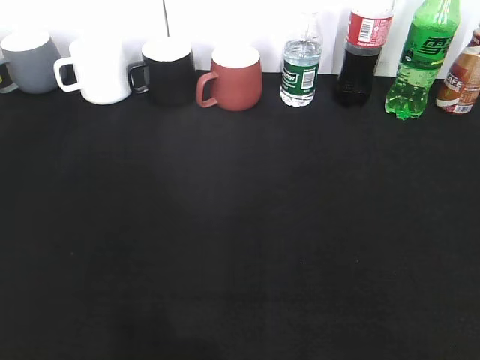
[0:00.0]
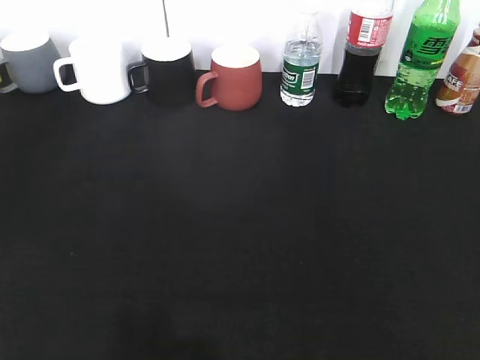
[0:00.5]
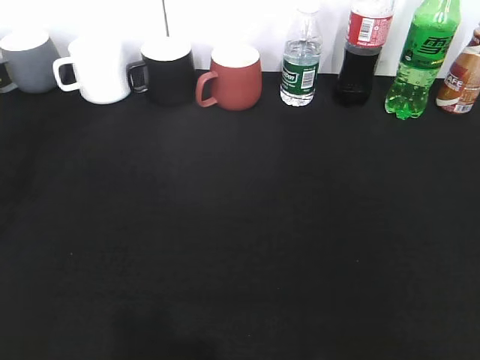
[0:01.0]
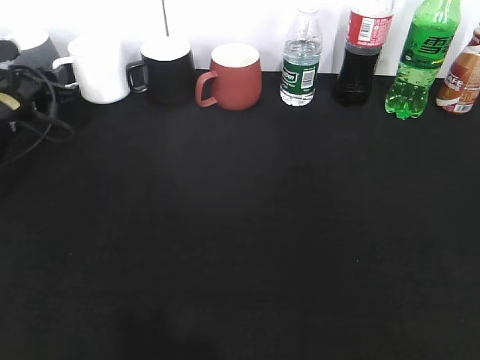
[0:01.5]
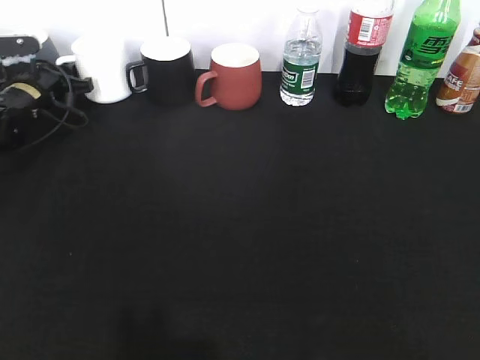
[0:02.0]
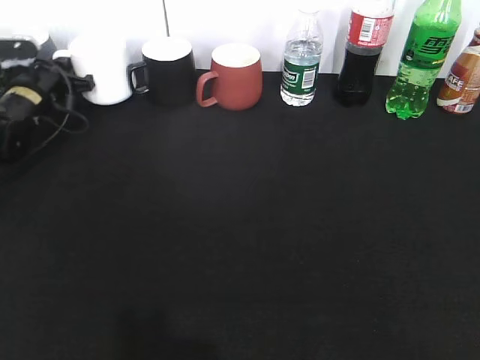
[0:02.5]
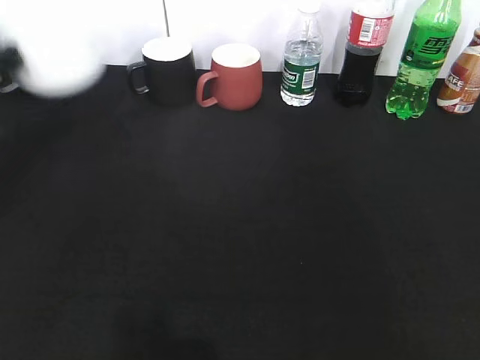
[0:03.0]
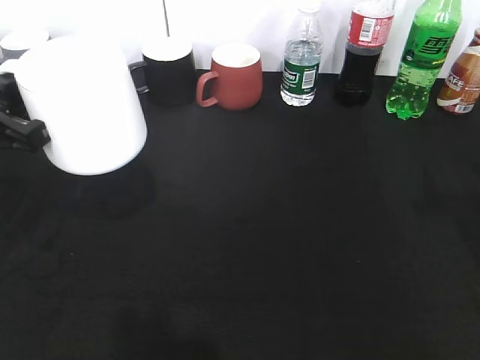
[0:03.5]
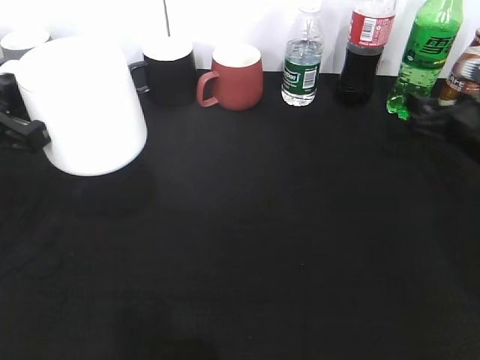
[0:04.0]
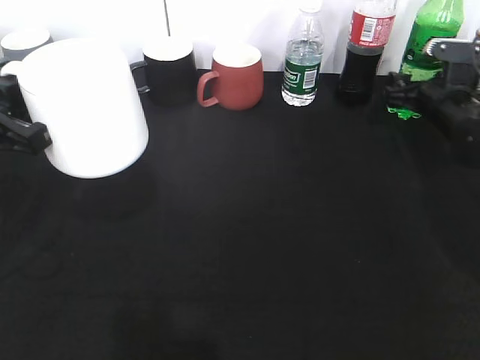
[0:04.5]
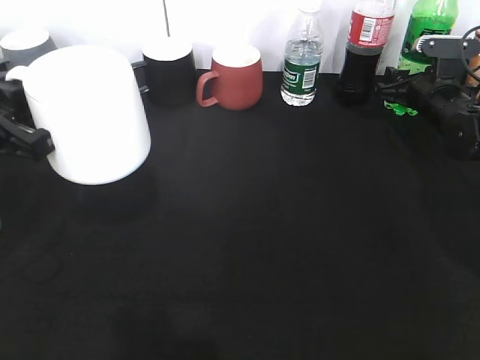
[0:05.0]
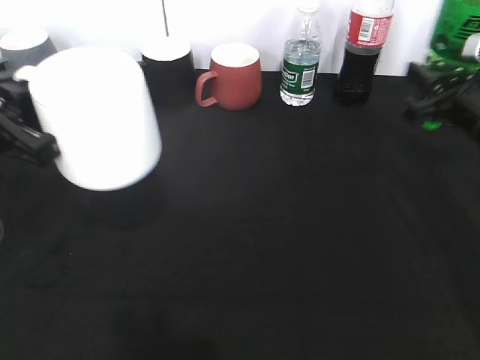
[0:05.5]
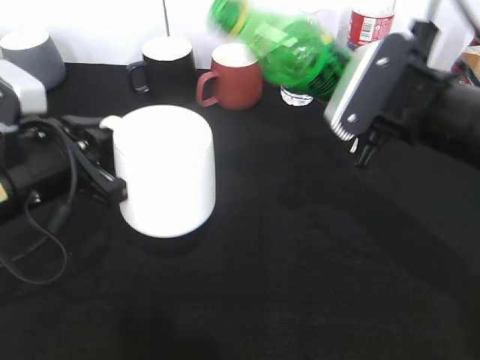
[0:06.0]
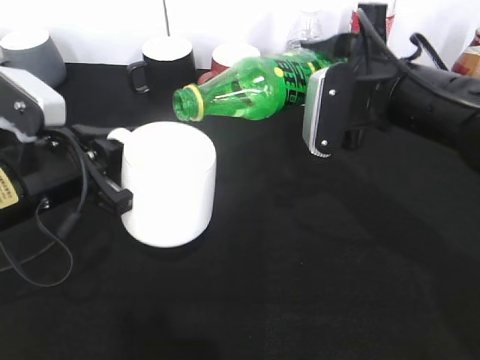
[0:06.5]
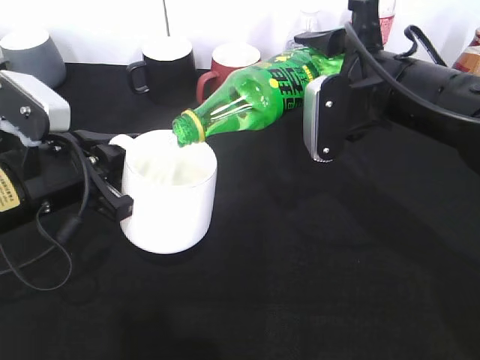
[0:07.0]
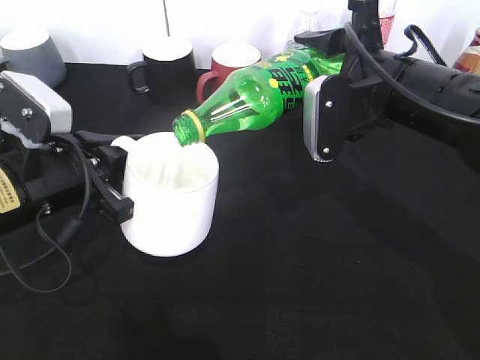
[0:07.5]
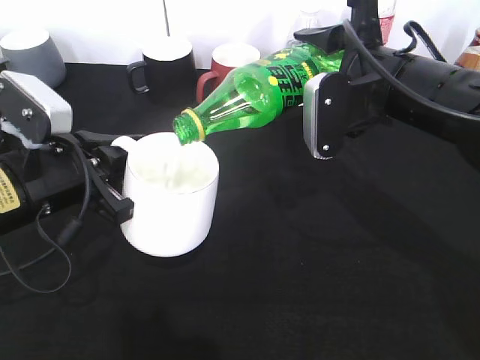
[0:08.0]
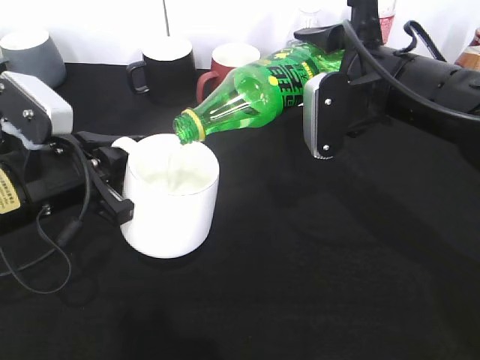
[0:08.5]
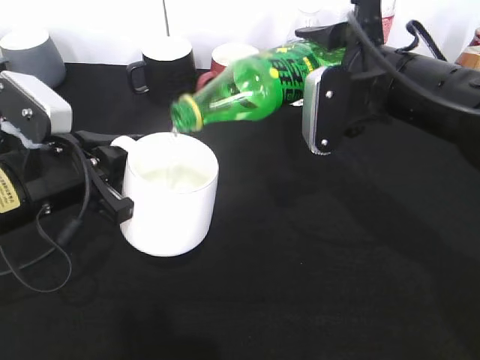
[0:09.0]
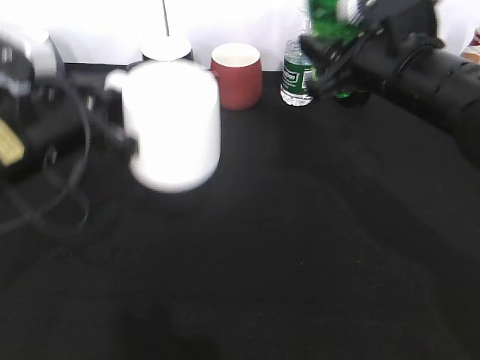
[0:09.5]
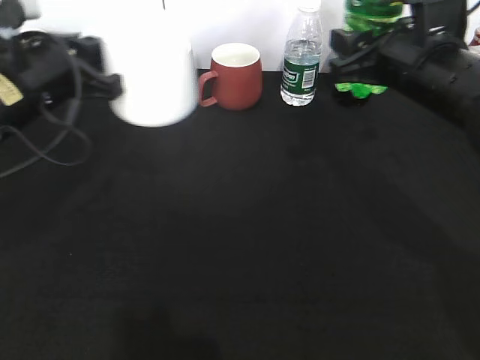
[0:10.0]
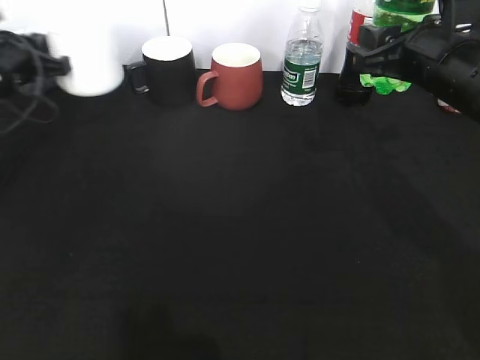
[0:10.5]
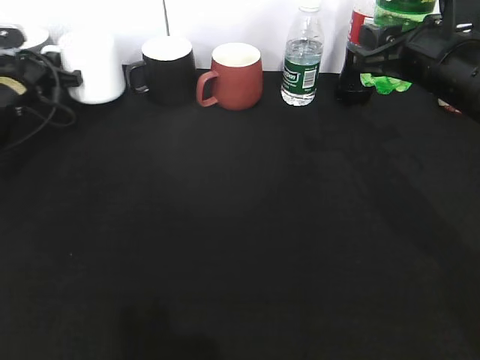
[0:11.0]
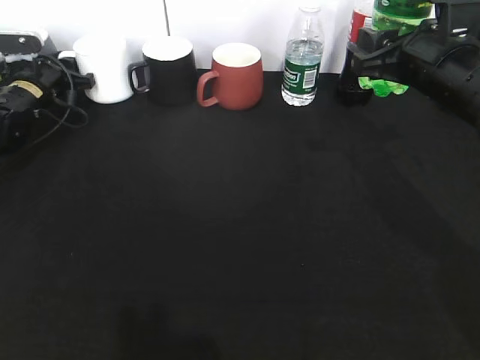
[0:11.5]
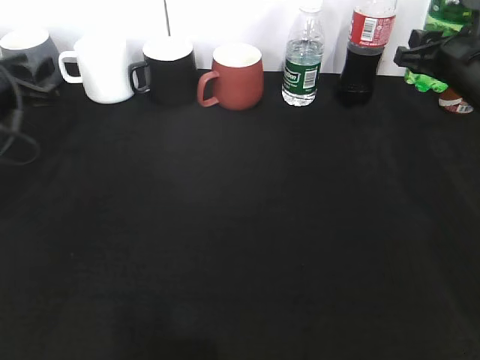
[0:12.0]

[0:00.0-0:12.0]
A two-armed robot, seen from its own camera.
Step, 0:00.0 to 0:02.0: Grasp the white cup with left gripper.
Step, 0:02.5 to 0:03.5: Lift the white cup with left gripper.
Step, 0:04.0 to 0:05.0: Grasp the bottle with sprite with right gripper.
Step, 0:05.5 to 0:09.0: Pour the sprite from bottle to cup with right gripper.
0:00.0 to 0:02.0: The left gripper travels forward by some 50 cm, and closes up.
0:02.0 to 0:04.0: The right gripper shifts roughly 40 cm forward and downward, while the left gripper is displaced backward and upward by roughly 30 cm, and closes its fingers.
0:04.0 to 0:06.0: The left gripper heads to the right, covering about 5 cm. The right gripper is displaced to the left, upward and backward by roughly 20 cm, and closes.
0:08.0 to 0:10.0: The left gripper goes approximately 10 cm forward.
0:10.0 to 0:12.0: The right gripper heads to the right and forward, covering about 10 cm; the left gripper travels to the left by approximately 10 cm, travels forward and back again, about 20 cm each way, and opens.

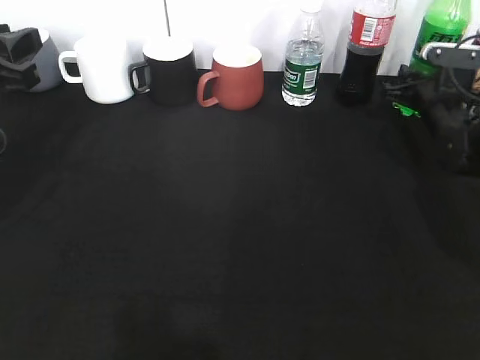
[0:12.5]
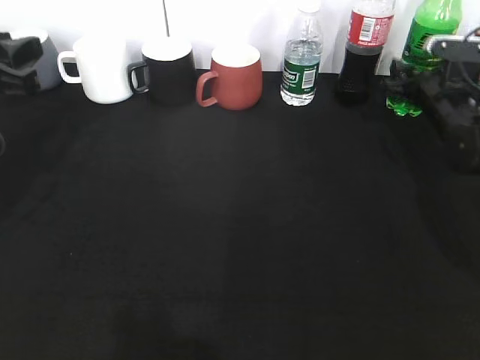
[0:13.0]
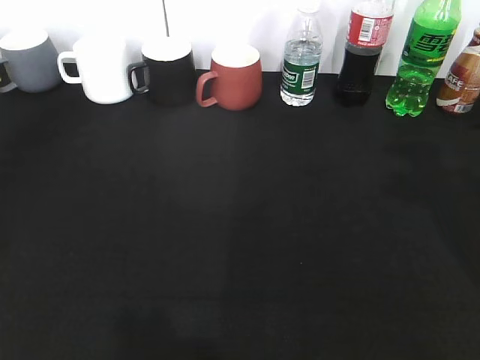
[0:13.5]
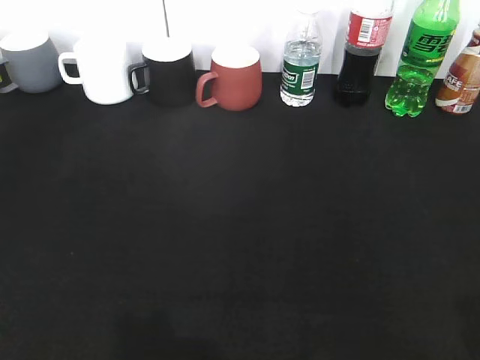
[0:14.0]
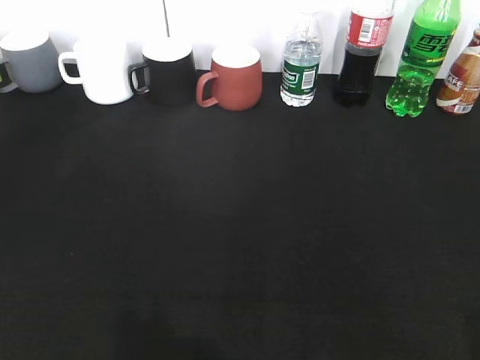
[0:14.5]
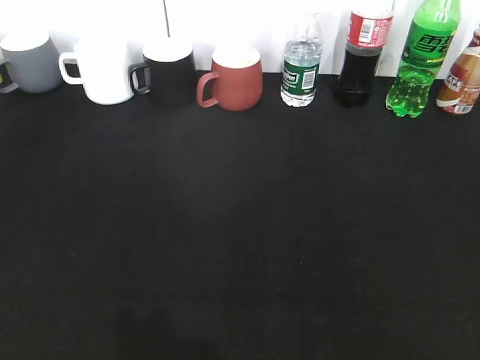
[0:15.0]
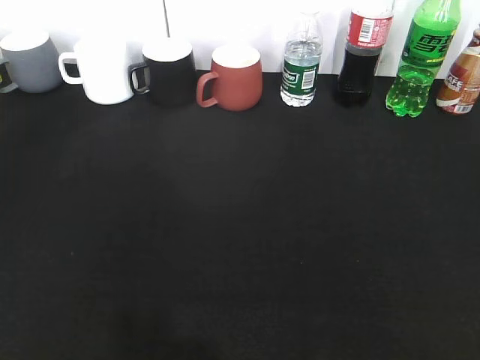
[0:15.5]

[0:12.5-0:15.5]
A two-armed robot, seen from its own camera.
0:12.5 to 0:14.0: The right gripper travels backward and upward by about 50 cm, and opens up, while the left gripper shifts some 25 cm backward.

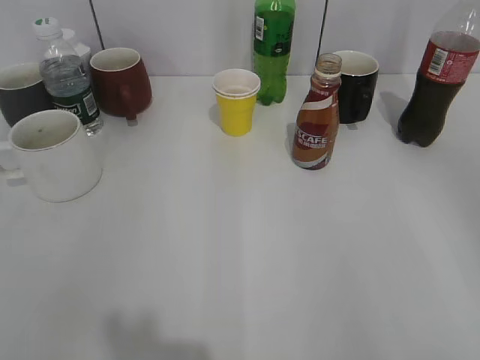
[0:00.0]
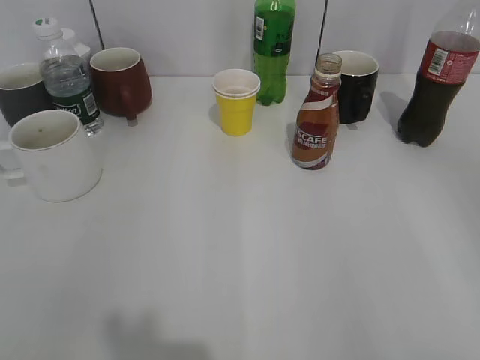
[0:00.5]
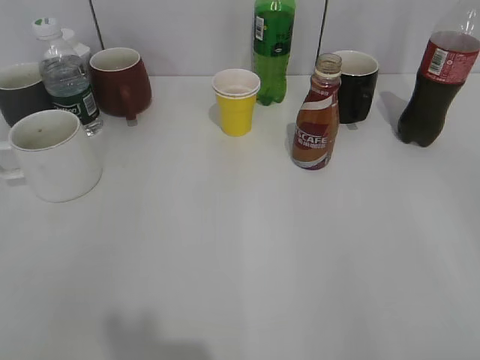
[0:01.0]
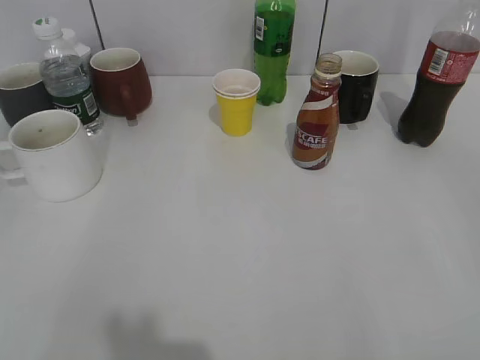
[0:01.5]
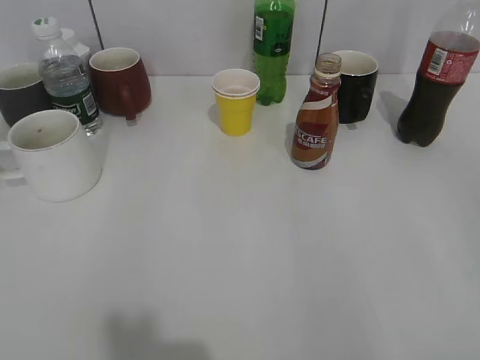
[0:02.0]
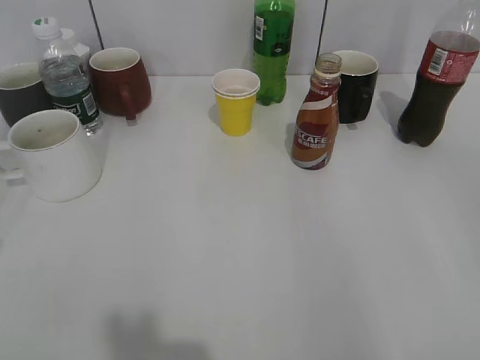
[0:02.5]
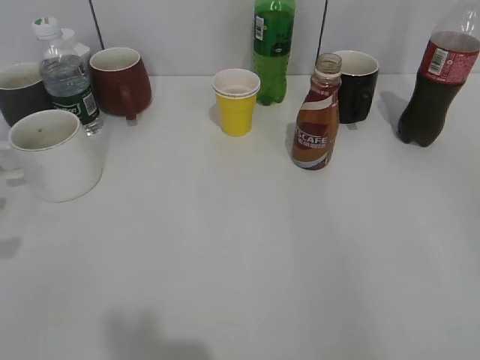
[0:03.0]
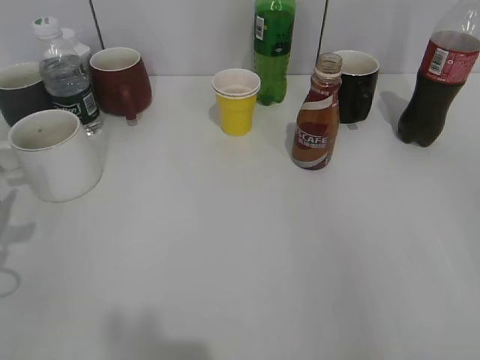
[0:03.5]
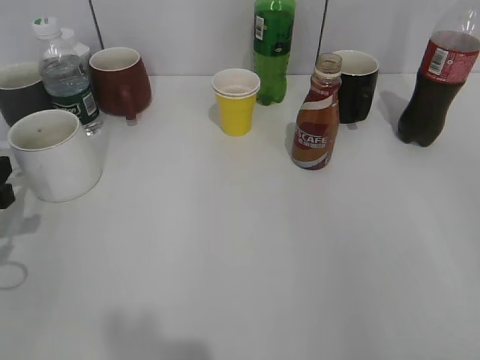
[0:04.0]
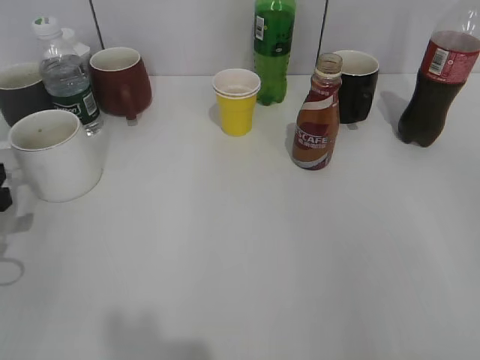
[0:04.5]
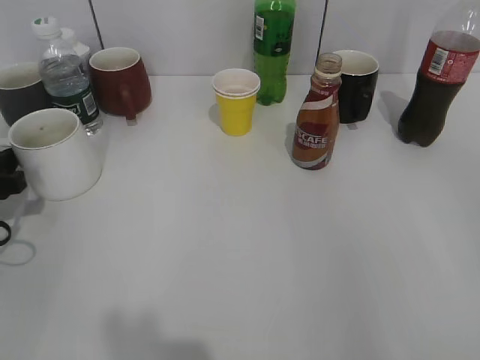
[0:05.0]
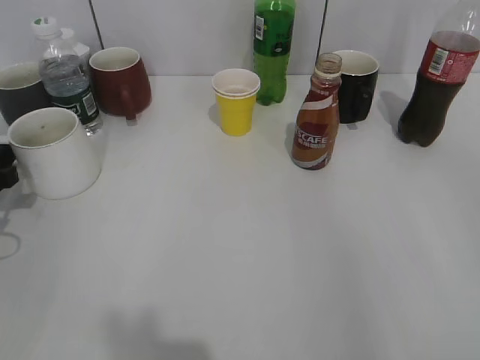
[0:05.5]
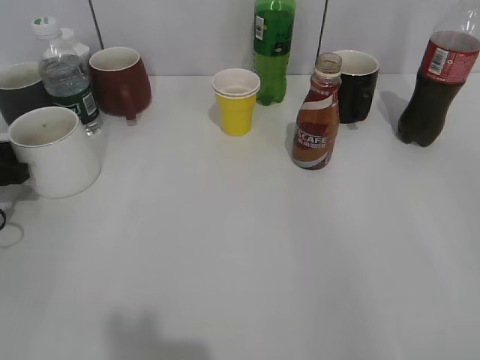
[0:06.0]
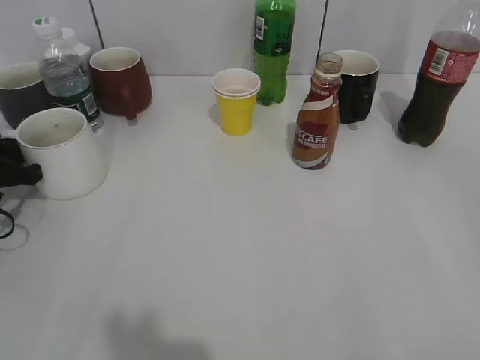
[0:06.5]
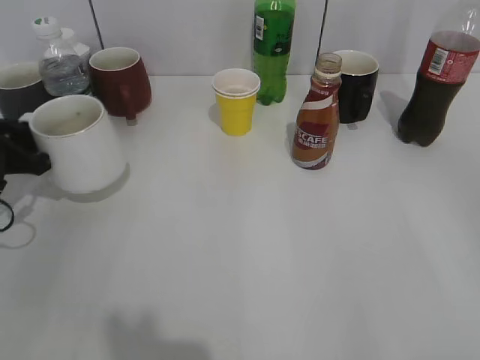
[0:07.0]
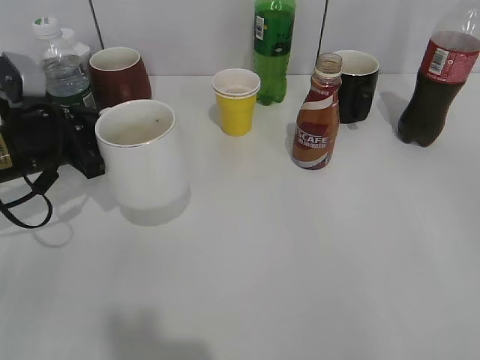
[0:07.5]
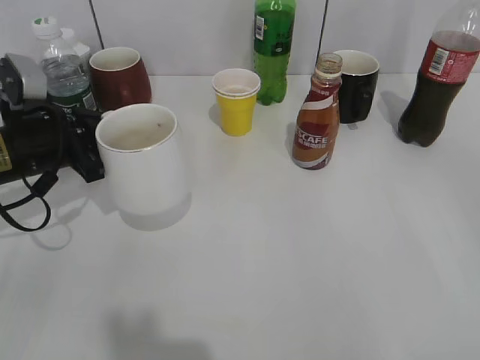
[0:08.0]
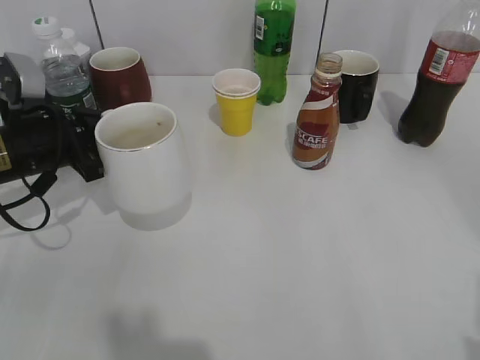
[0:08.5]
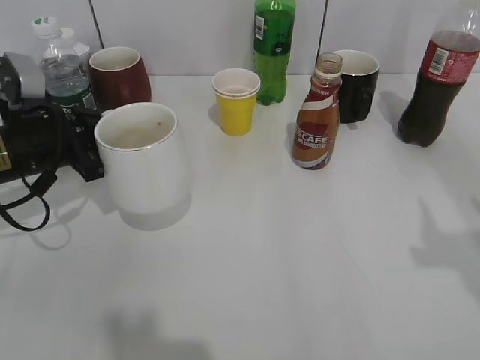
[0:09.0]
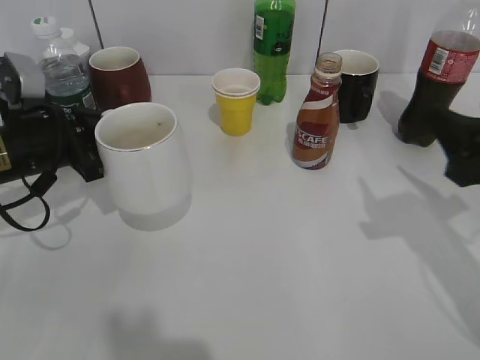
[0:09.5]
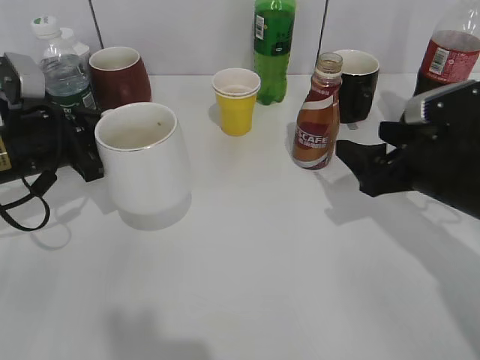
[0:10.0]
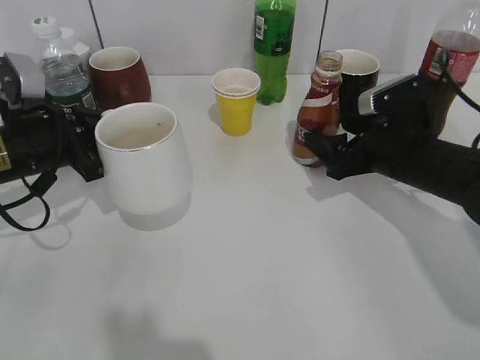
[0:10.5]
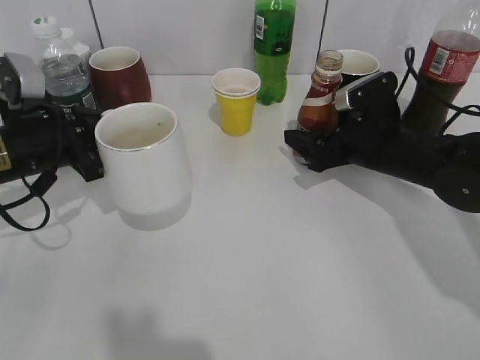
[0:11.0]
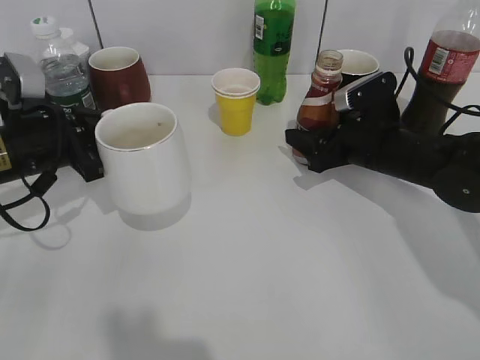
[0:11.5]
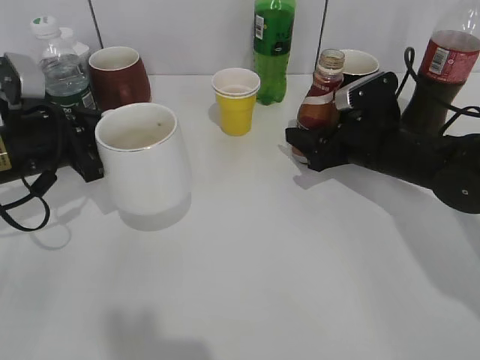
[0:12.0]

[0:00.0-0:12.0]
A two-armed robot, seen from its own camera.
Step, 0:03.0 to 0:06.0: Grasp the white cup with left gripper.
Step, 0:07.0 to 0:07.5: Lift the white cup with left gripper.
0:02.0 to 0:04.0: The left gripper travels downward and forward by roughly 20 cm, and opens its fingers.
0:04.0 to 0:06.0: The left gripper moves forward, about 5 cm.
0:06.0 to 0:08.0: The left gripper shifts approximately 10 cm to the right, and closes up.
0:08.0 to 0:10.0: The right gripper heads forward and downward, covering some 30 cm, and opens up.
0:10.0 to 0:12.0: The right gripper heads forward, covering roughly 10 cm, and closes its fingers.
